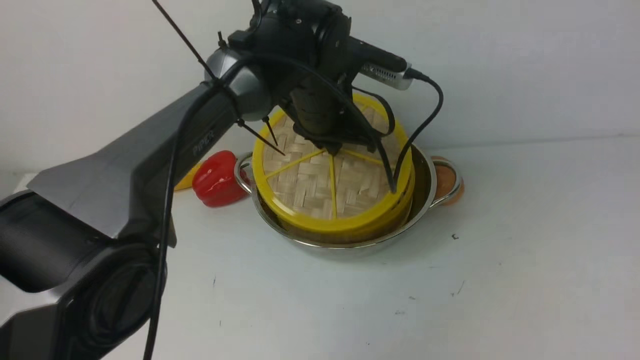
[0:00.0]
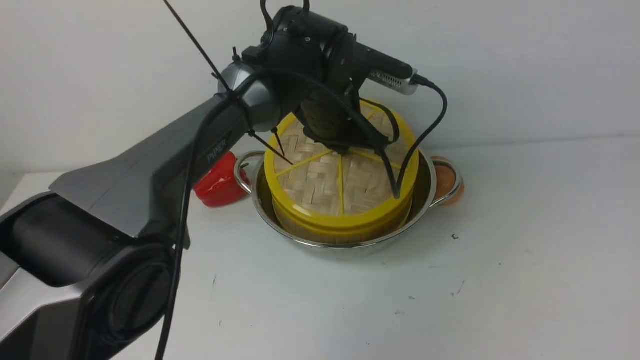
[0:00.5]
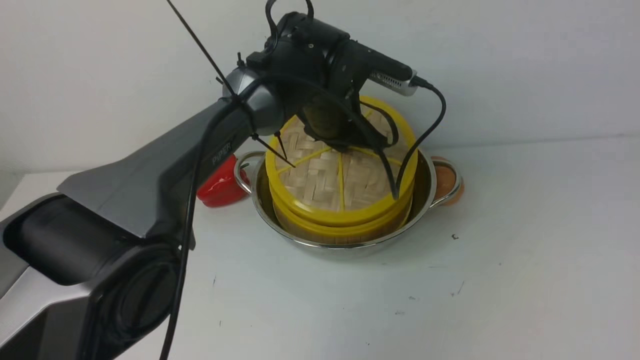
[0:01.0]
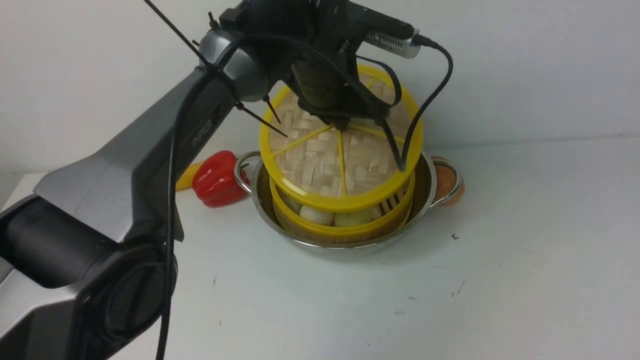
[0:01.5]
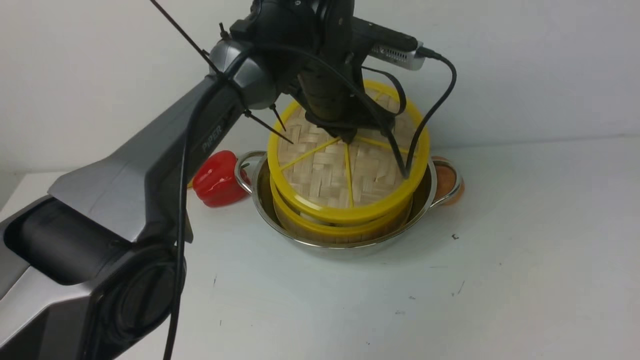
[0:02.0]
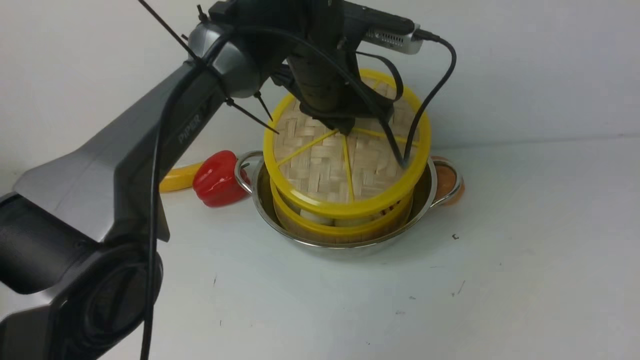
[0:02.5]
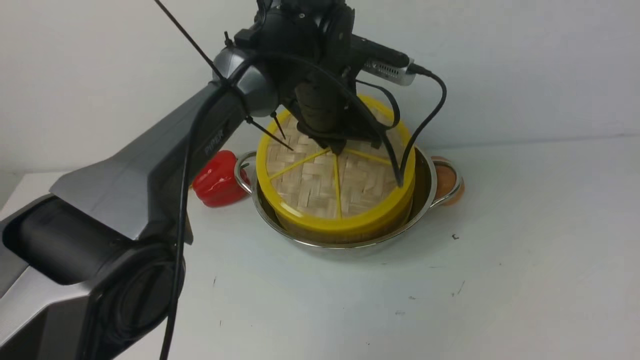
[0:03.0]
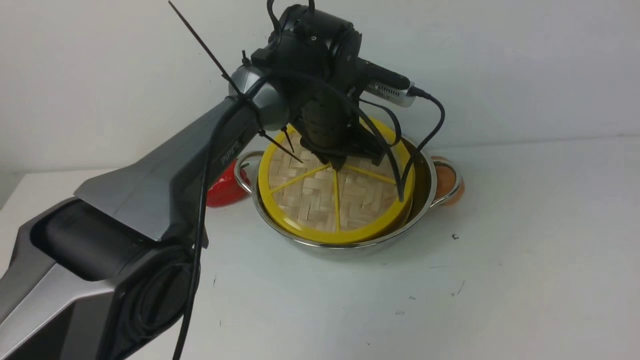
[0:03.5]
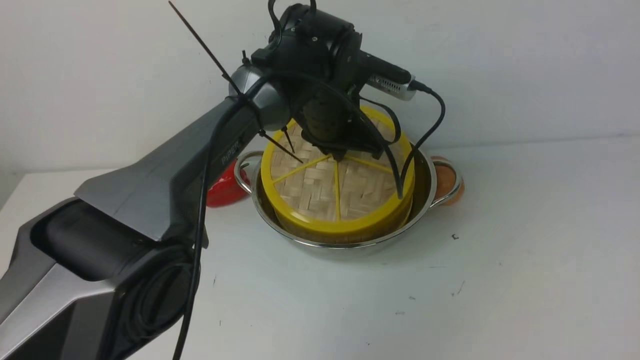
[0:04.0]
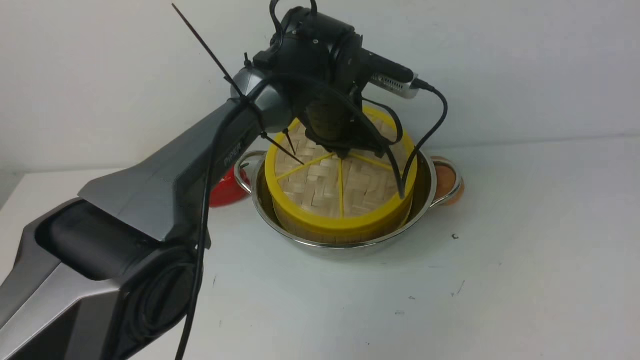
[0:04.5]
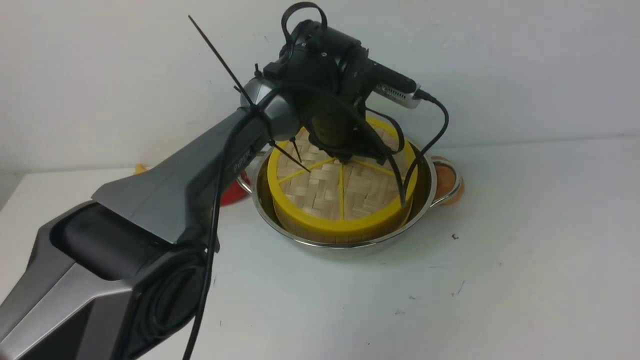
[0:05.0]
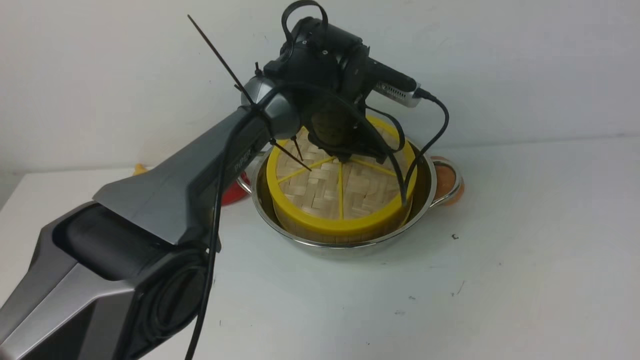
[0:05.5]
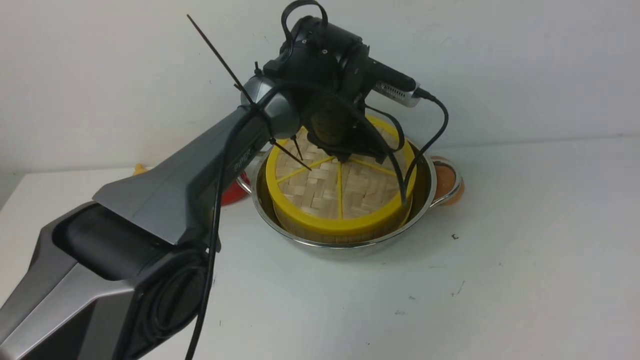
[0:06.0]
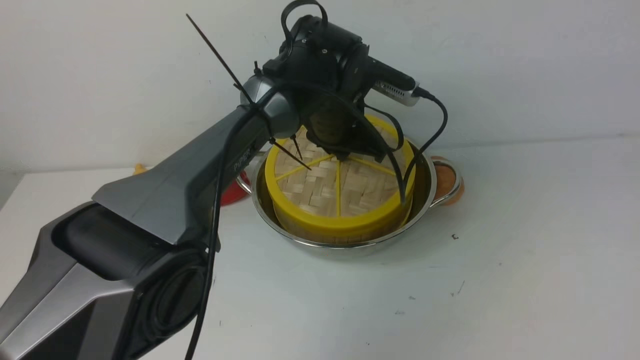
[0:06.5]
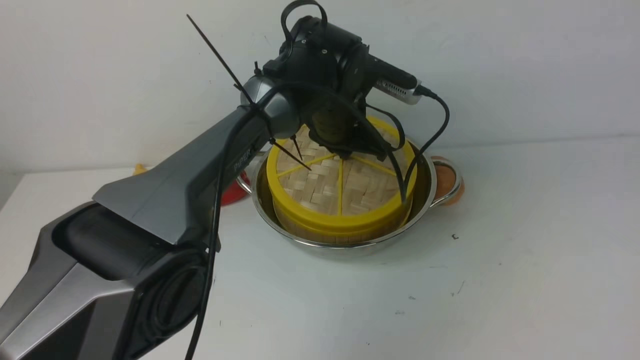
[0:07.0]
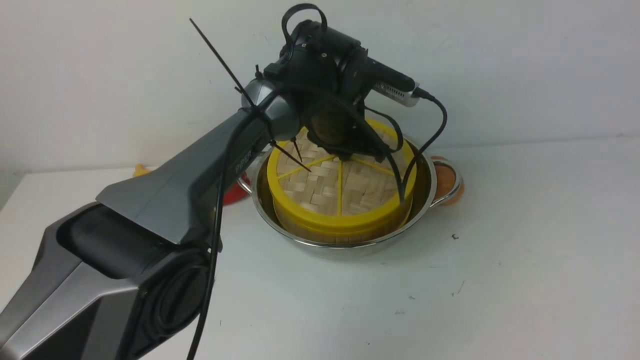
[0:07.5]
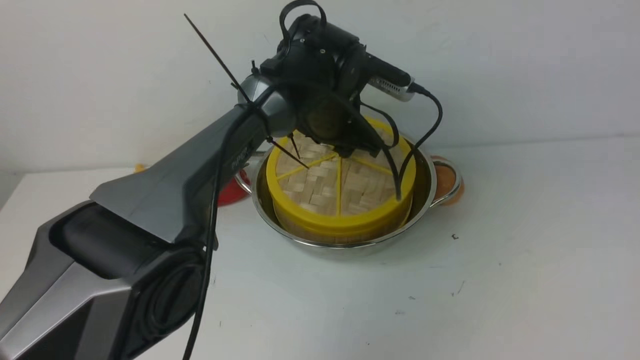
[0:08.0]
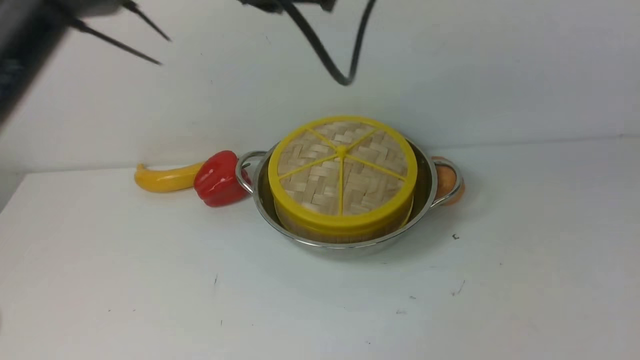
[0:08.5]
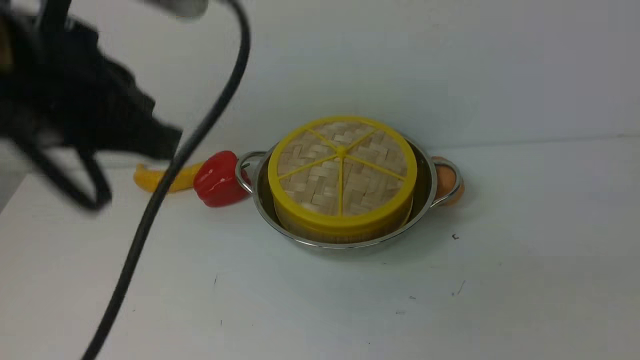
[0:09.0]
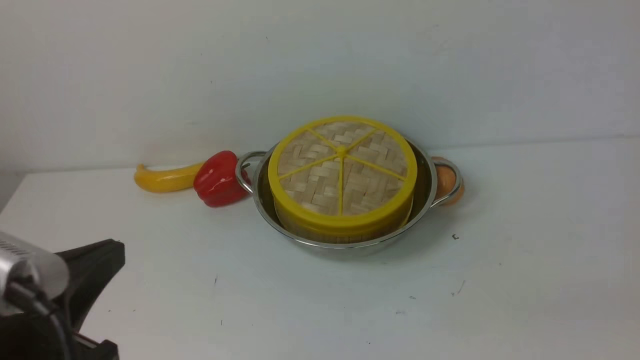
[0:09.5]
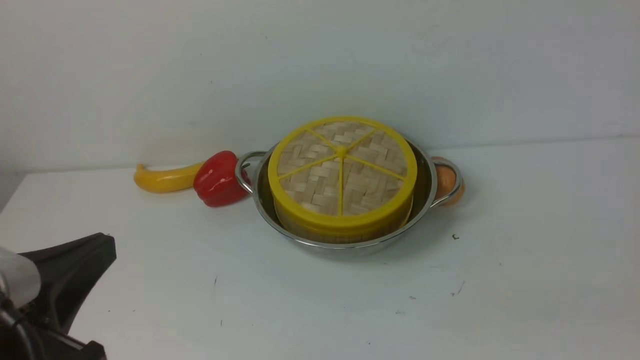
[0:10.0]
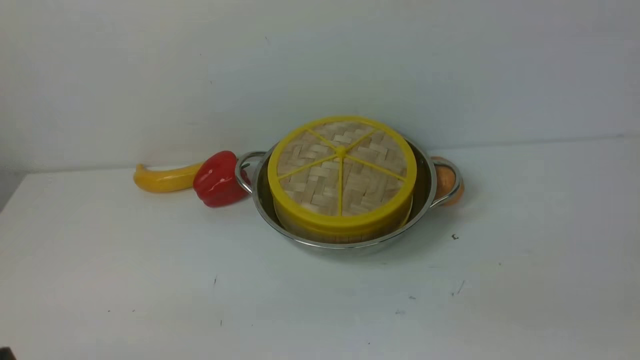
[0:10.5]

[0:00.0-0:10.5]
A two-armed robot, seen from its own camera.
Task of the whole recording: place the steamer in the pot on the white table, and put the lid on the steamer.
Step, 0:00.0 to 0:09.0: use the left arm to place the steamer lid on the steamer.
0:00.0 to 0:02.0: The grippers make only small movements.
0:04.0 to 0:06.5: The grippers make only small movements.
0:06.5 to 0:08.5: The left gripper goes approximately 25 cm upward and backward, and opens, then closes again.
0:08.5 to 0:10.5: The right gripper goes approximately 15 cm downward and backward, while the left gripper is displaced backward, downward and to the left by some 40 cm.

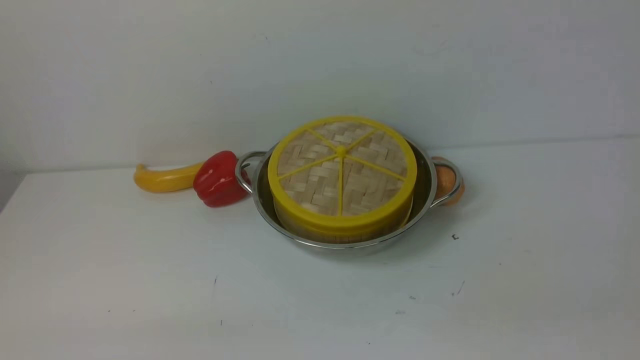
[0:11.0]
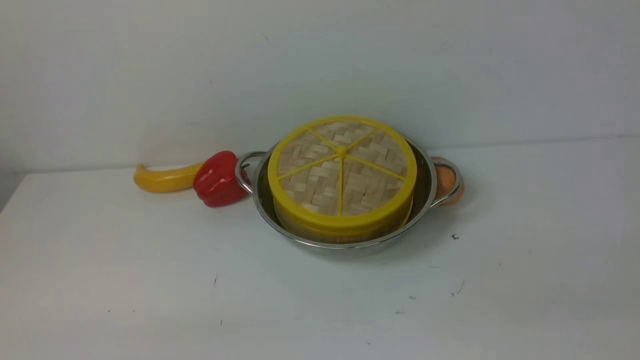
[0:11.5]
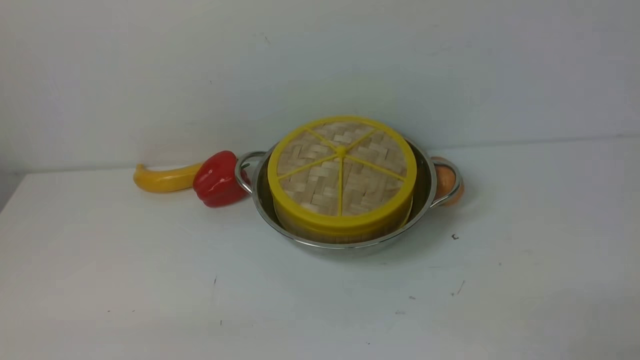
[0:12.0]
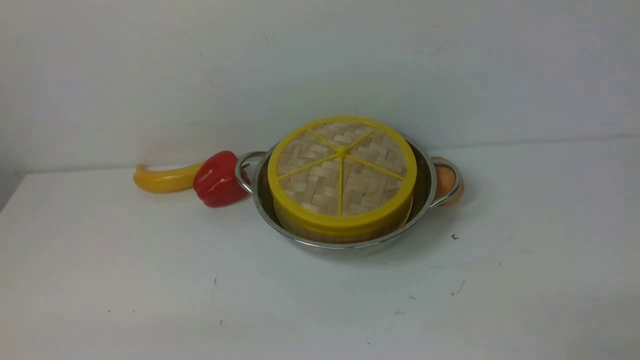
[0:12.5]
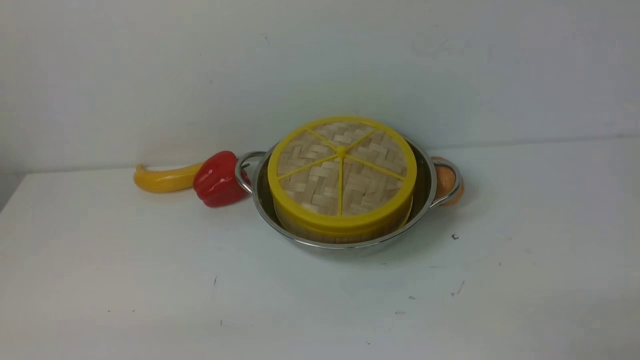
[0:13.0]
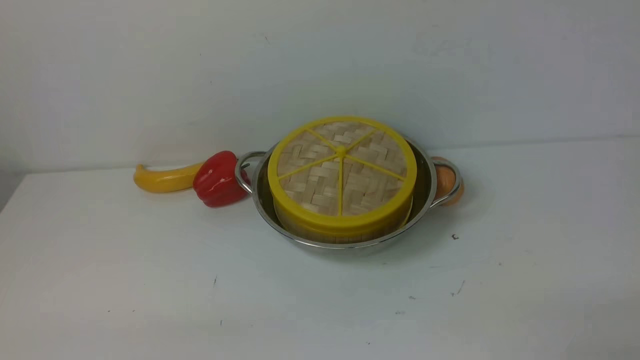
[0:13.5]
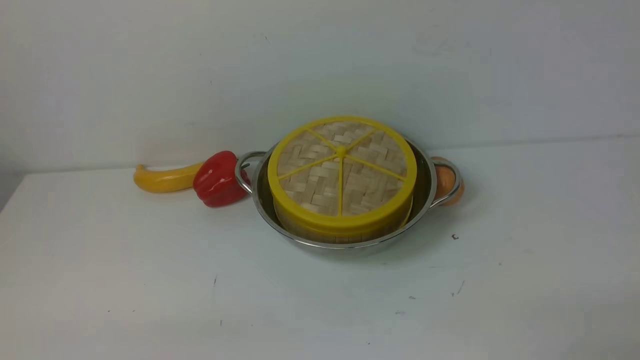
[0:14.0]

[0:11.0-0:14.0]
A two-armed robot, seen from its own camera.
Task of the whole recording: place the steamer in the pot on the white table, and put the lid on the steamer.
0:12.5 to 0:14.0: Neither gripper changes place.

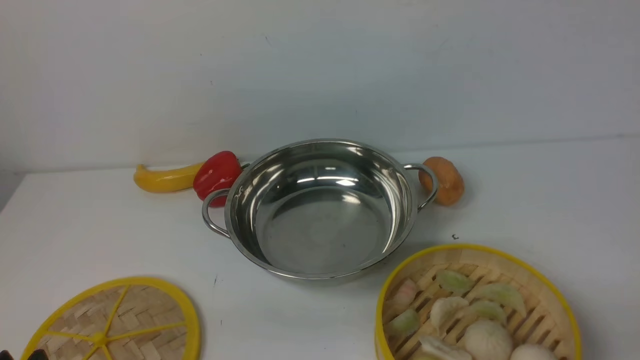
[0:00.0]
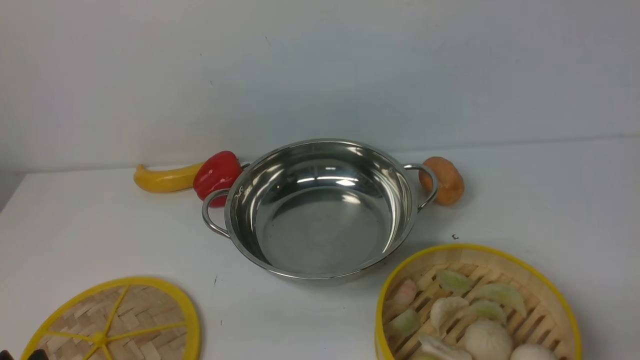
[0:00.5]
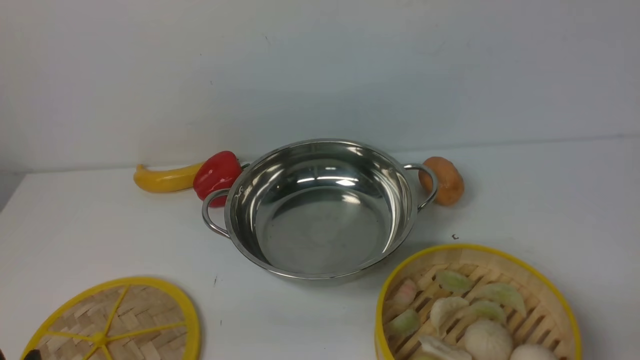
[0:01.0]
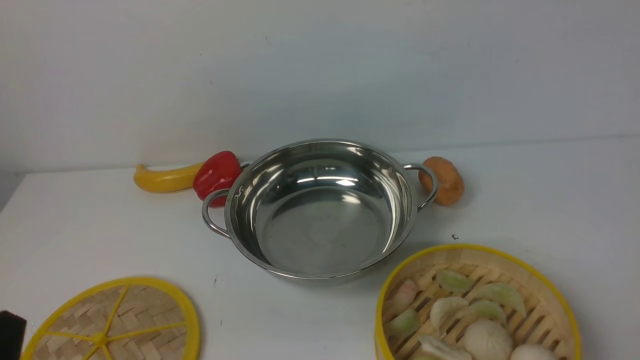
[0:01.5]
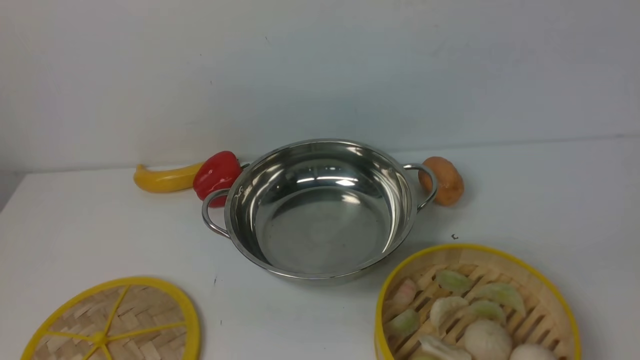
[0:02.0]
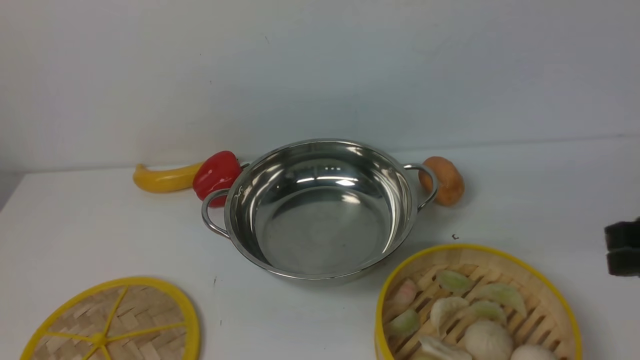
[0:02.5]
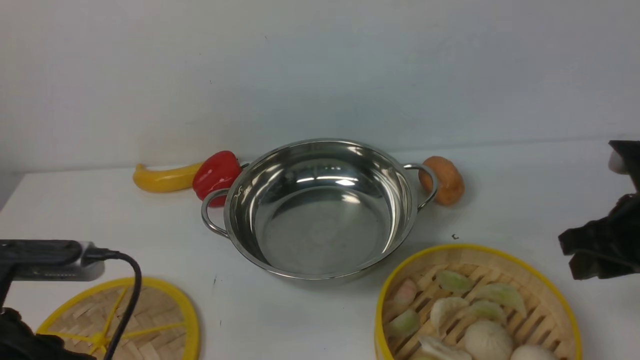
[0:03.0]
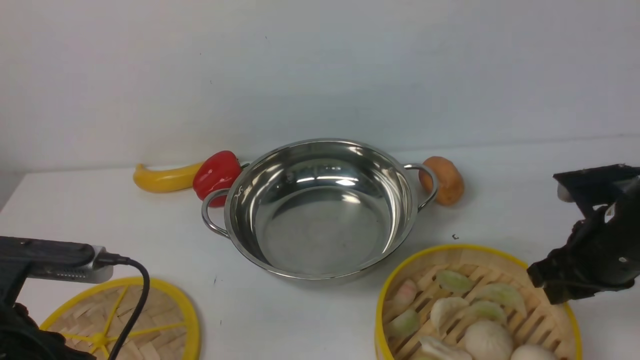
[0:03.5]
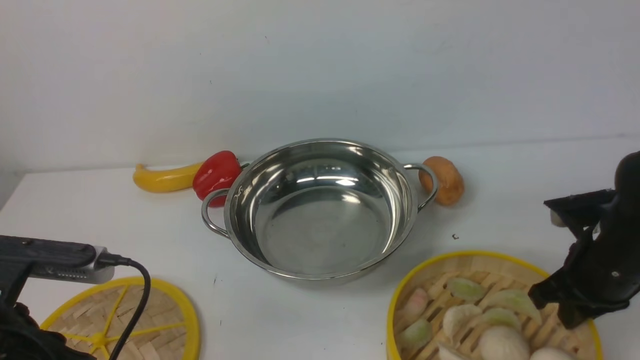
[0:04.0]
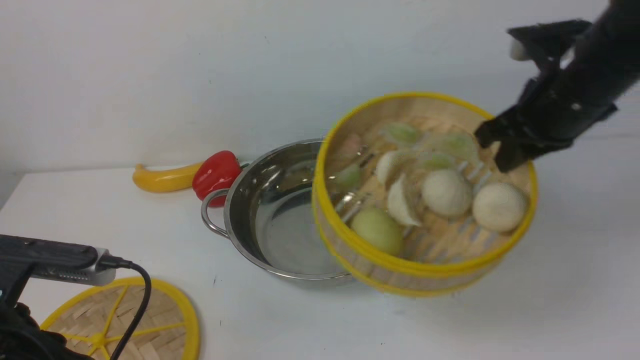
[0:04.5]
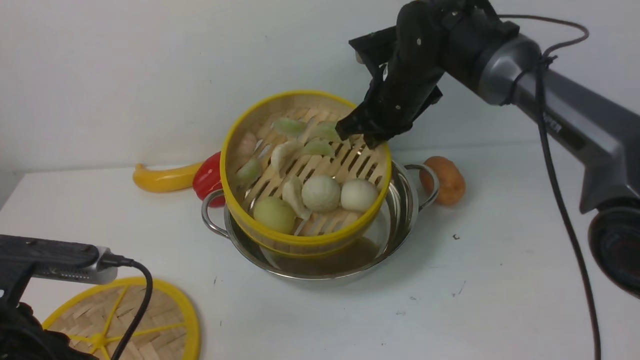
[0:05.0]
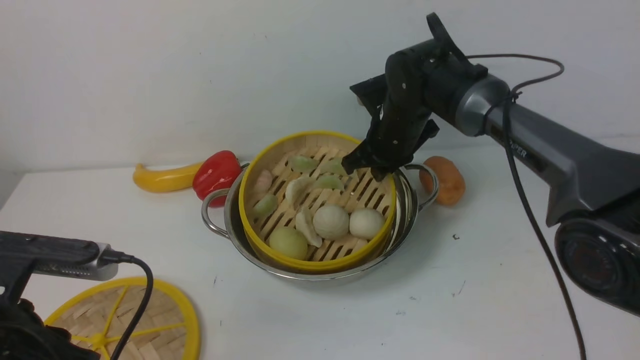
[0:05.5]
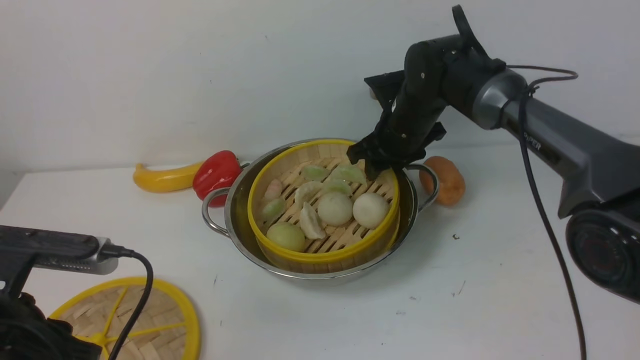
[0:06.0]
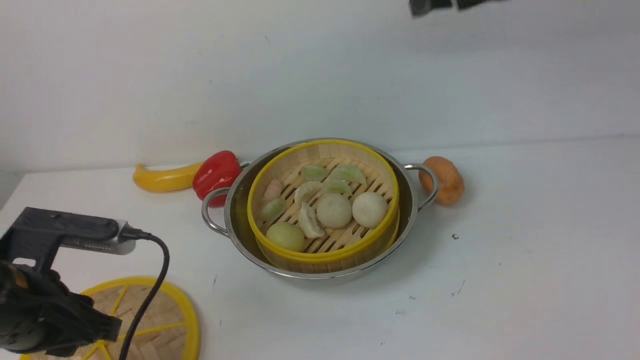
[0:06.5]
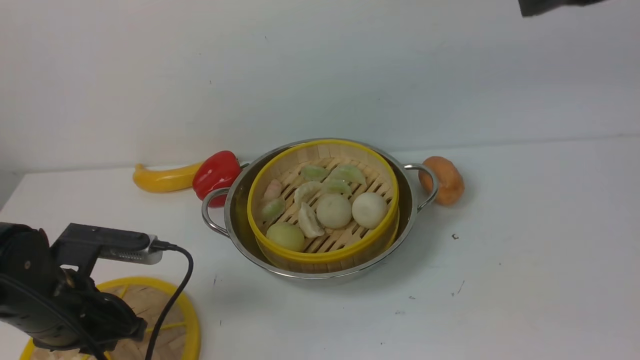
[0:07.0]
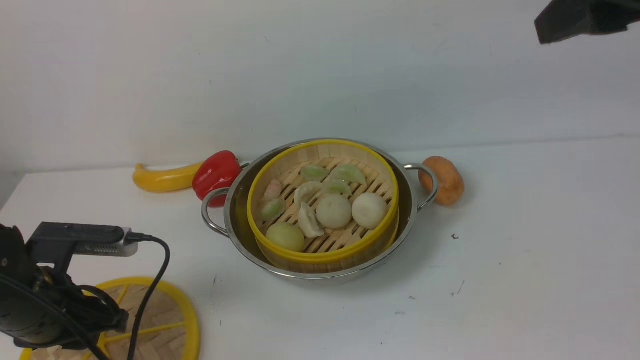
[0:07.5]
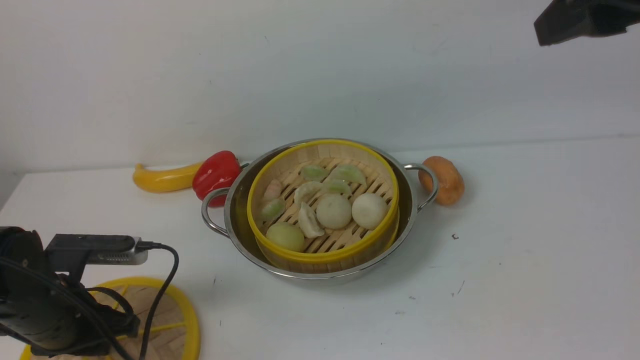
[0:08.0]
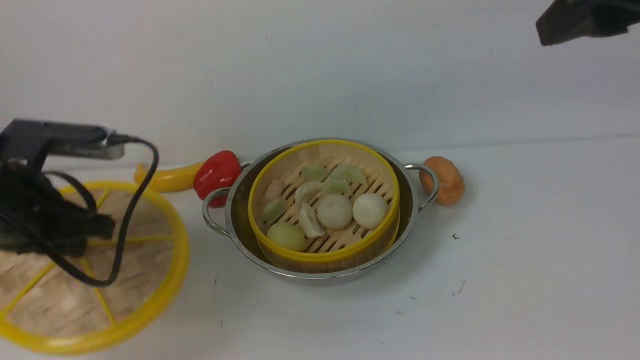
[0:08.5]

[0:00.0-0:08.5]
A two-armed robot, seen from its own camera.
Task of the whole recording: place the steamer in the pot on the white table, and put the lid on the steamer.
Step, 0:00.0 to 0:04.5: use the right arm to lift the steamer closest to it.
Step, 0:05.0 to 0:06.0: use the right arm to put the steamer into the iron steamer pot in the middle.
0:02.0 to 0:04.0: The left gripper shifts some 15 cm forward, while the right gripper travels forward and downward by some 25 cm.
0:04.0 to 0:06.5: The right gripper moves up and down over roughly 20 cm, changing direction 2 times, and opens its fingers.
0:06.5 to 0:08.5: The left gripper heads forward, covering about 10 cm, and closes, while the right gripper moves backward and to the right, approximately 15 cm.
